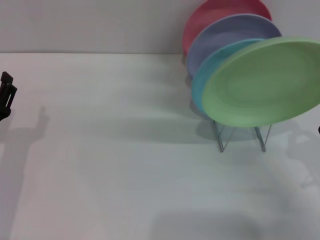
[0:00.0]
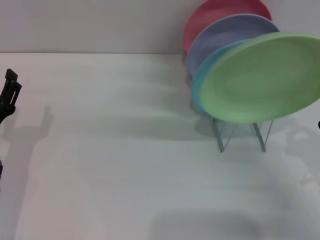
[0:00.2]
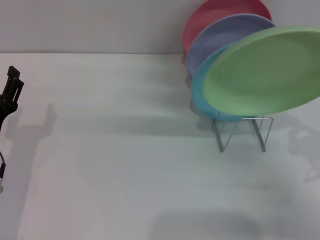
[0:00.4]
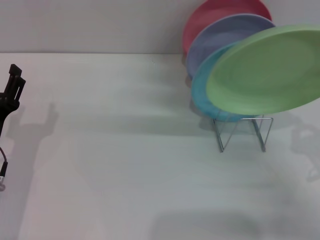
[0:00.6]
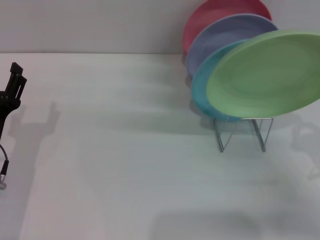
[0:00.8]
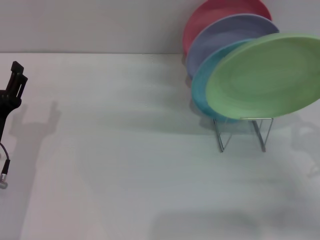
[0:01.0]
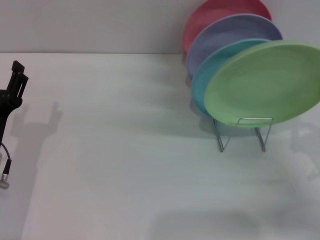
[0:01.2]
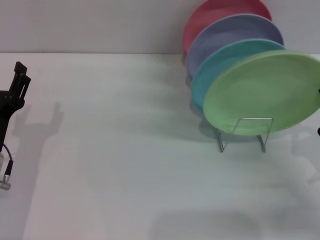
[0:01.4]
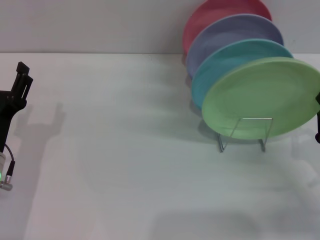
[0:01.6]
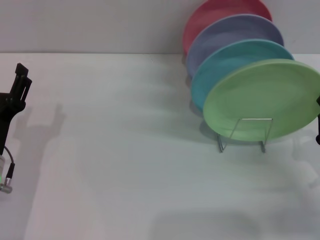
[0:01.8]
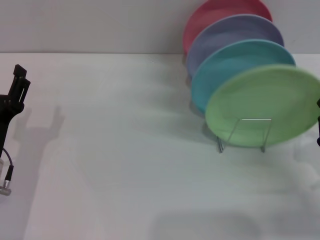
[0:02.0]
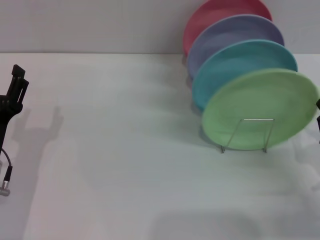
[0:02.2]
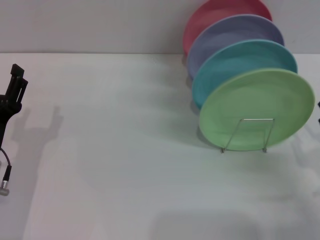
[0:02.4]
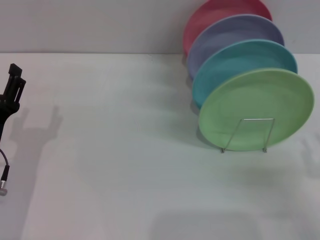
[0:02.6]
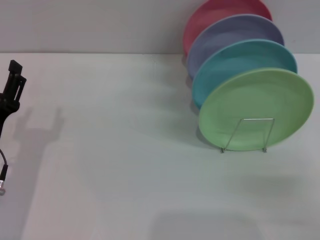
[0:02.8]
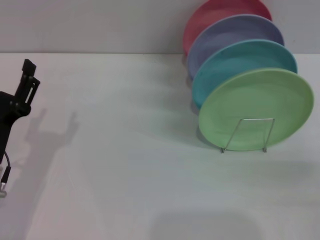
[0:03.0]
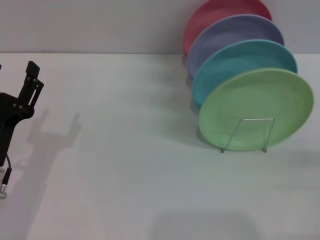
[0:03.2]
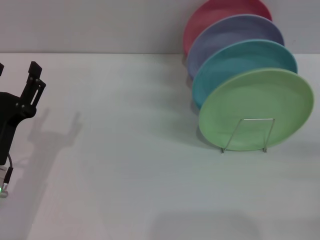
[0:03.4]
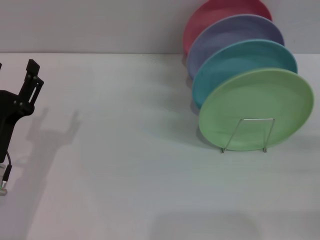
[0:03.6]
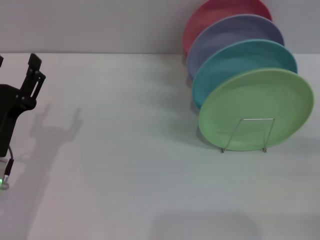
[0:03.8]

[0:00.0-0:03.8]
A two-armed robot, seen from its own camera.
Task of the whole recording: Grip the plate with one hand, pass it to the other, then set it on the shelf.
Step, 0:00.0 to 0:02.2: Place the plate on the shelf with the right gripper.
0:00.0 to 0:01.2: The grippers move only a little.
0:01.2 to 0:02.6: The right gripper is displaced backward by about 5 cm, and opens.
0:02.6 to 0:03.8: The right gripper moves to the right, approximately 5 cm, and opens up.
